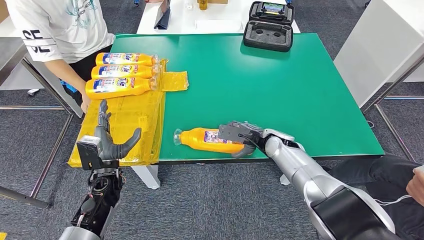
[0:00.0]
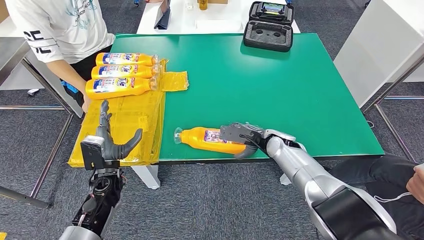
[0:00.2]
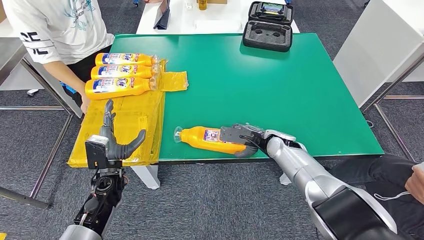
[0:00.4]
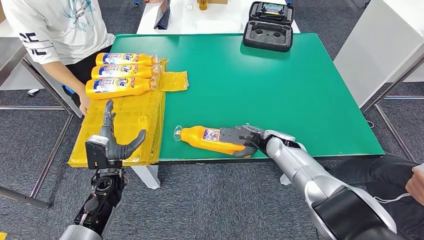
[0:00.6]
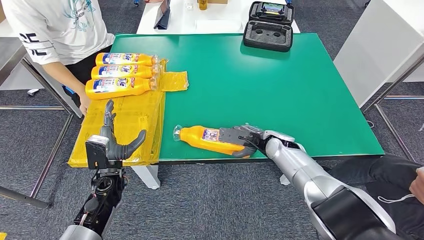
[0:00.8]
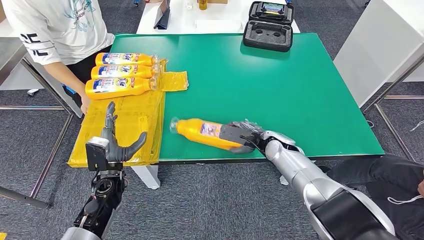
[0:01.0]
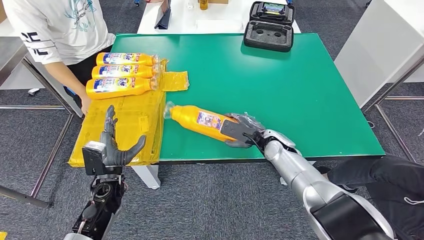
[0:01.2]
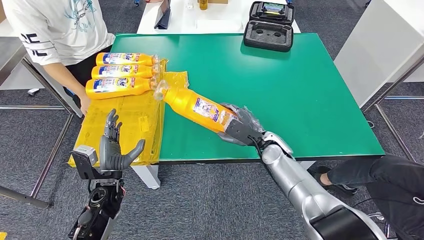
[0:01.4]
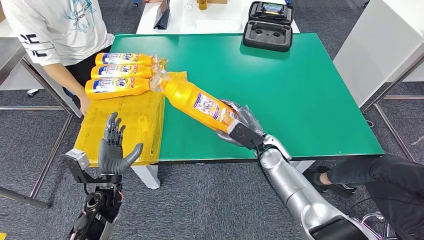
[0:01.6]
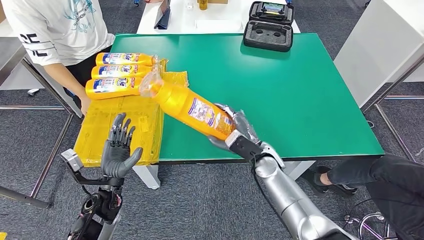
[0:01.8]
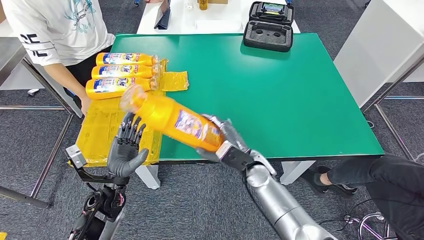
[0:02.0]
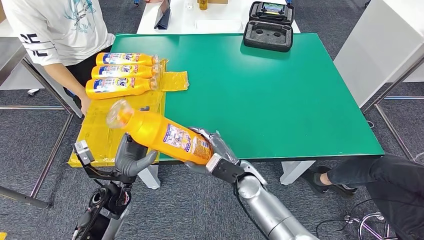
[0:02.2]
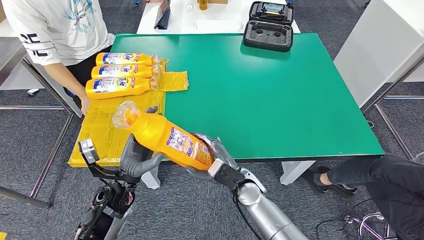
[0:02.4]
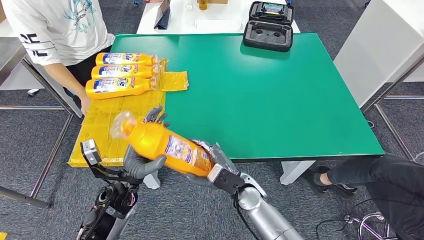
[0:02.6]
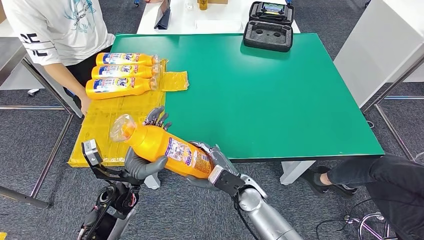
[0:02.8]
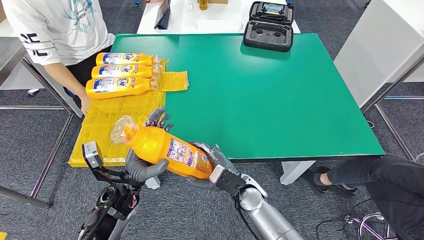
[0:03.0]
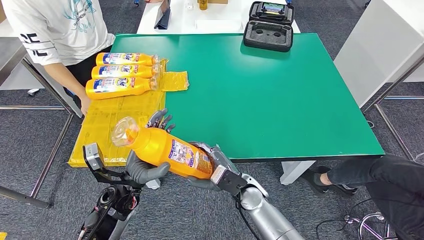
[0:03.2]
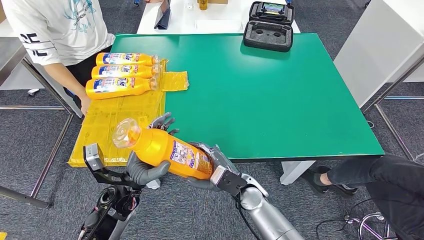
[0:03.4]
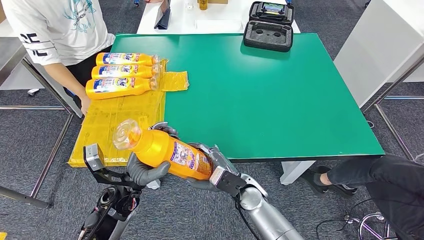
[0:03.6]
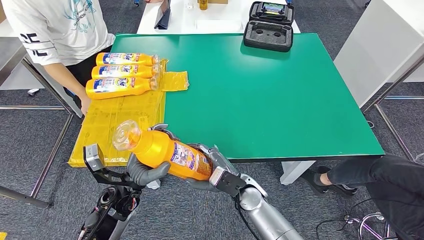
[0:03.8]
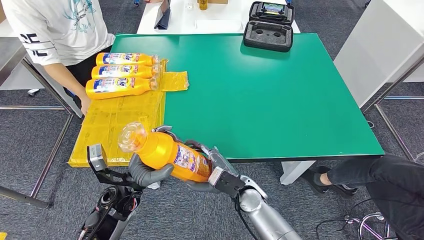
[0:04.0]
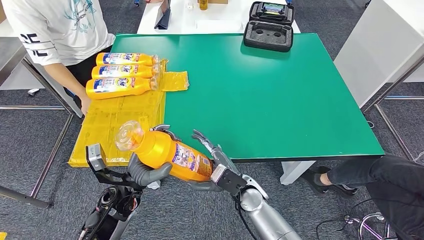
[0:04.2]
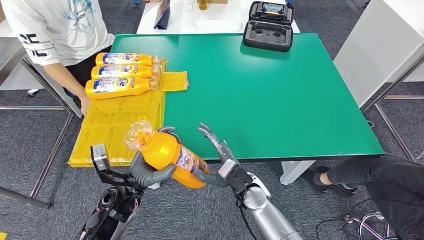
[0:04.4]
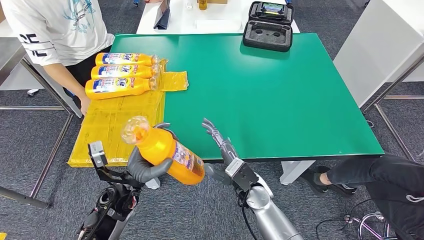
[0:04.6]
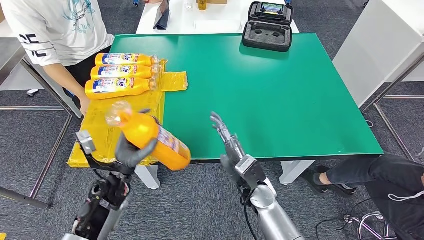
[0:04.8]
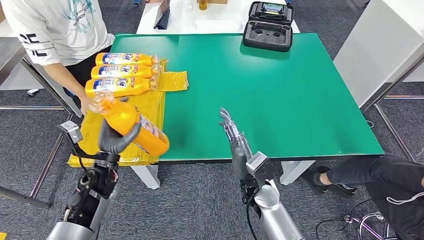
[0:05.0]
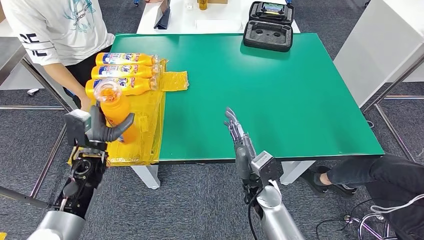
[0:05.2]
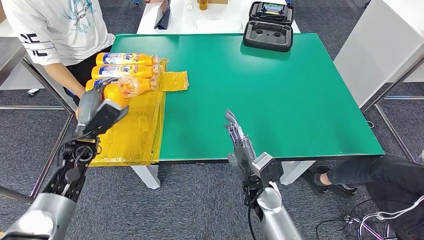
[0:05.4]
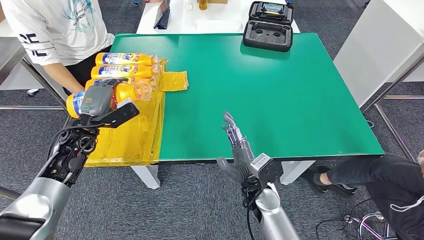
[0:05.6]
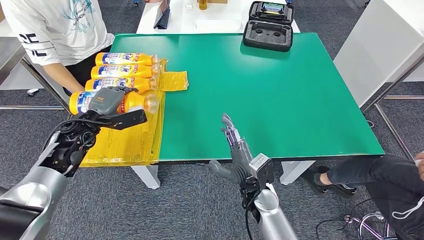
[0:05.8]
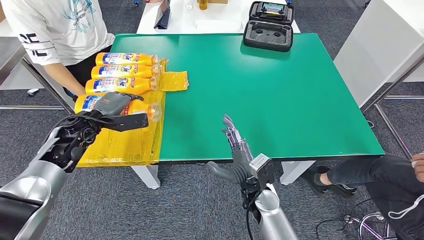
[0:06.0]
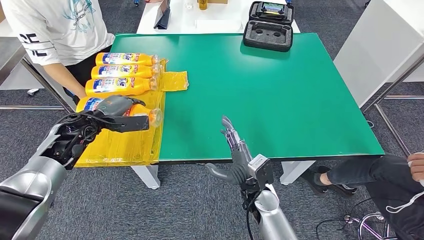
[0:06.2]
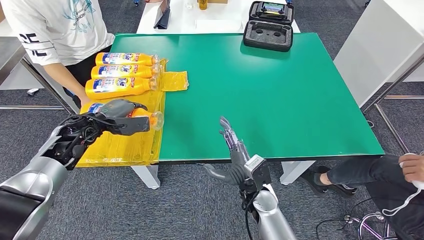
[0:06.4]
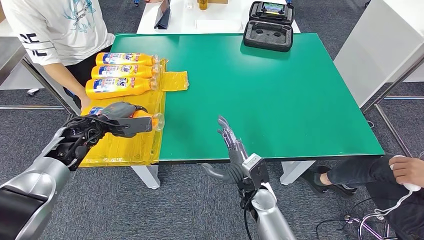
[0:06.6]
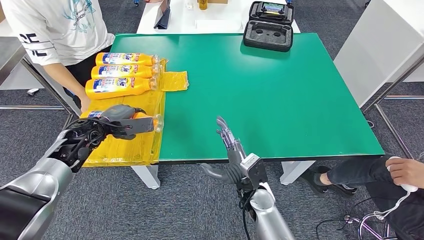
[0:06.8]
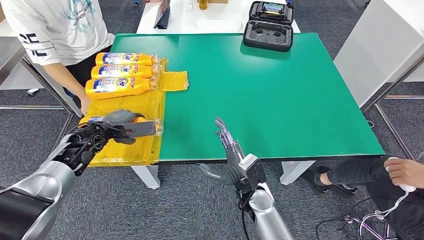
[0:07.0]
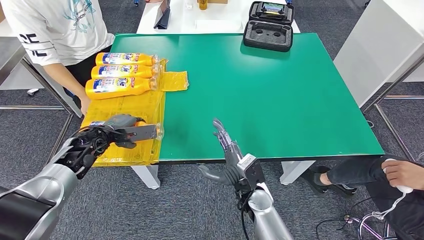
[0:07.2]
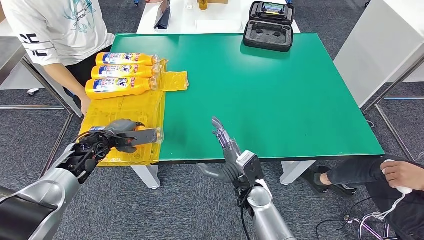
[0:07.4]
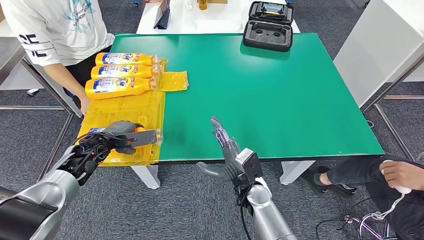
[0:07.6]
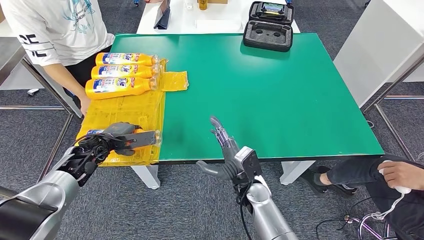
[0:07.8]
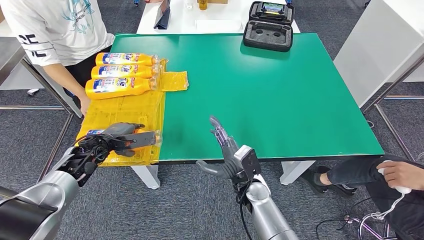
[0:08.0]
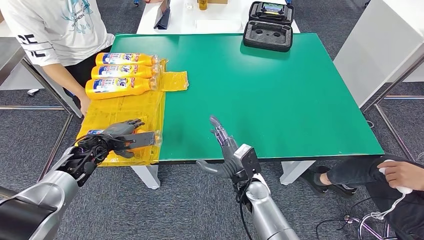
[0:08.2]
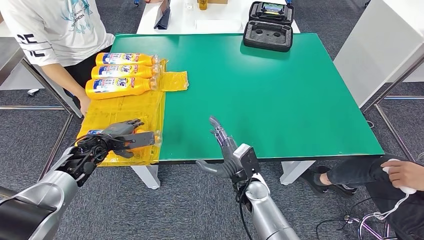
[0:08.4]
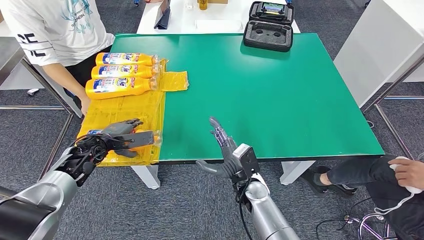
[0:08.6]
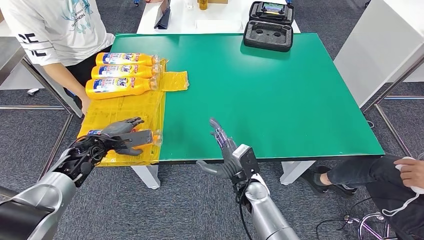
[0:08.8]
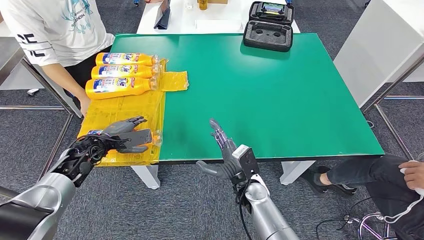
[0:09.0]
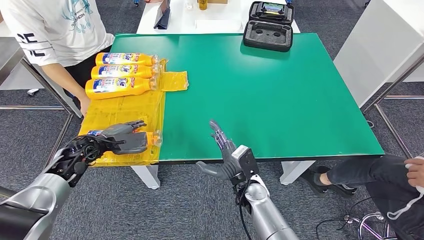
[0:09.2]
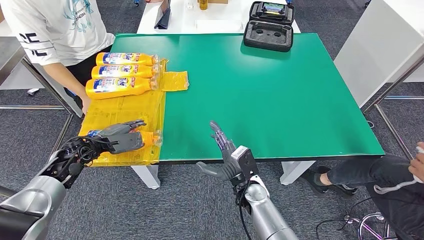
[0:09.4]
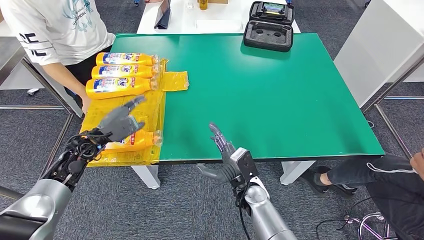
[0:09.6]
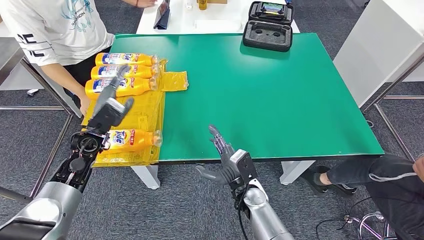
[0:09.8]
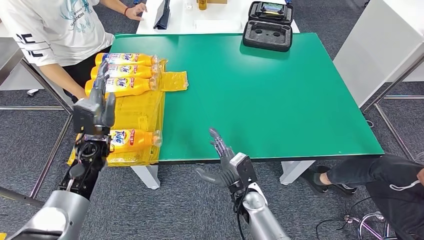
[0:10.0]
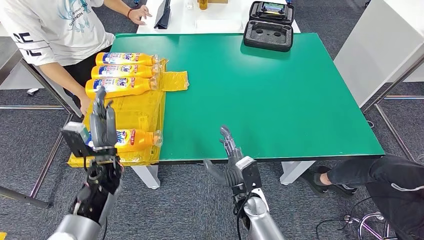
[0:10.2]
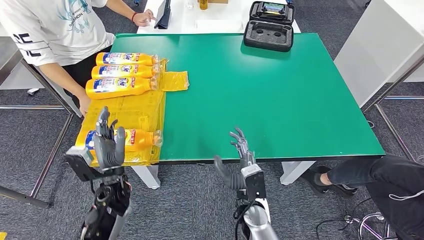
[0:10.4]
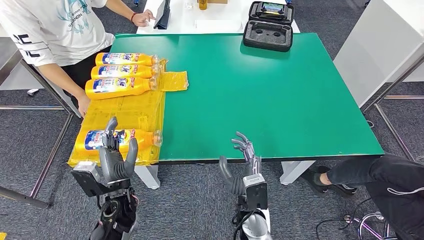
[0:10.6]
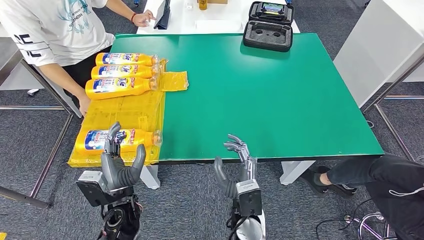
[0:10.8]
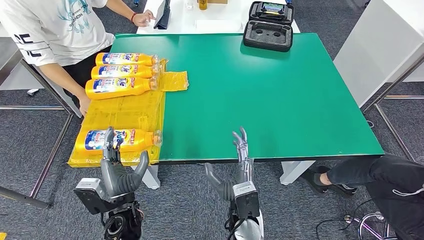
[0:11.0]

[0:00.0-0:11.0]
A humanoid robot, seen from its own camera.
Step, 0:00.0 to 0:03.2: Pick up the bottle from the table.
Step, 0:03.4 to 0:11.0: Flip the bottle to face forward.
0:01.6 to 0:03.2: The left hand moves to the right, approximately 5 cm; the right hand travels backward and to the left by about 10 cm.
0:03.2 to 0:04.8: The hands stay close to where they were, moving slightly.
0:04.8 to 0:06.2: The left hand goes approximately 20 cm forward, to the left and upward.
0:06.2 to 0:07.8: The left hand shifts approximately 5 cm downward.
0:07.8 to 0:09.4: The hands make only small movements.
0:09.4 to 0:11.0: The right hand heads backward, covering approximately 10 cm, while the left hand goes roughly 25 cm backward and to the right.
